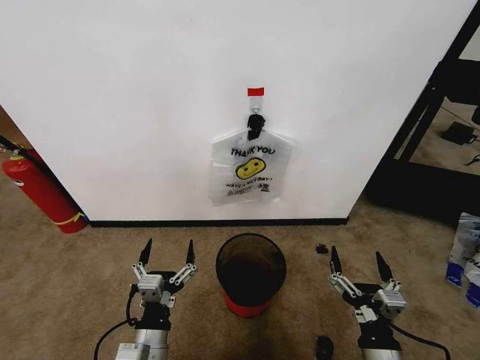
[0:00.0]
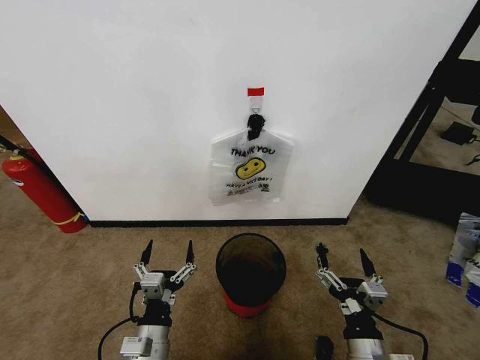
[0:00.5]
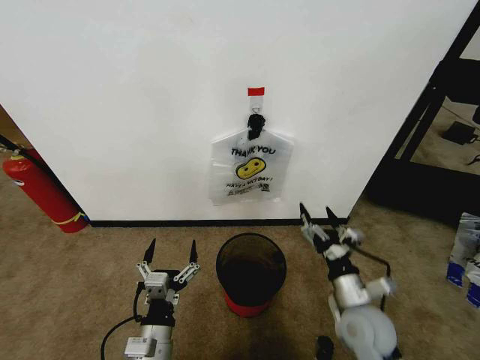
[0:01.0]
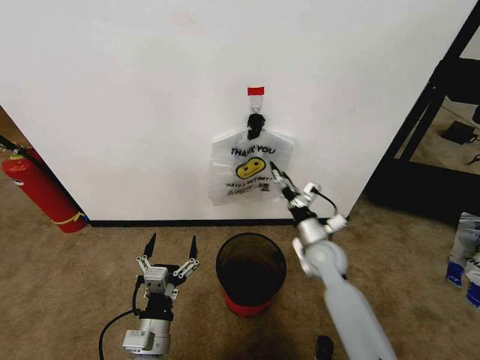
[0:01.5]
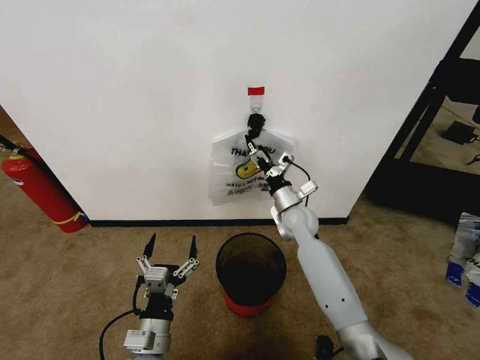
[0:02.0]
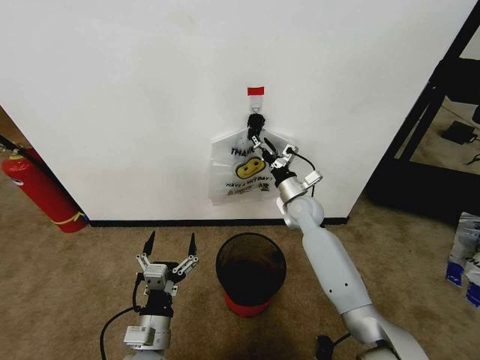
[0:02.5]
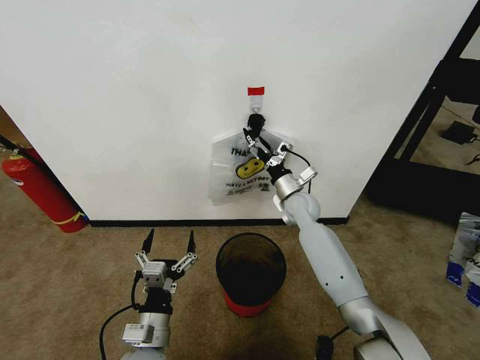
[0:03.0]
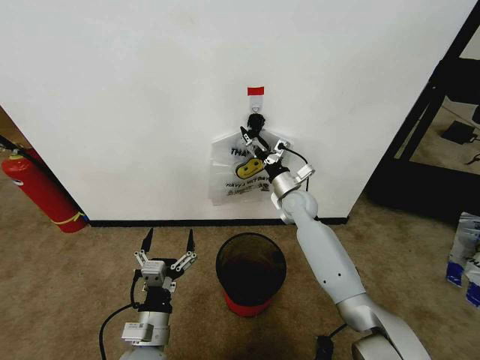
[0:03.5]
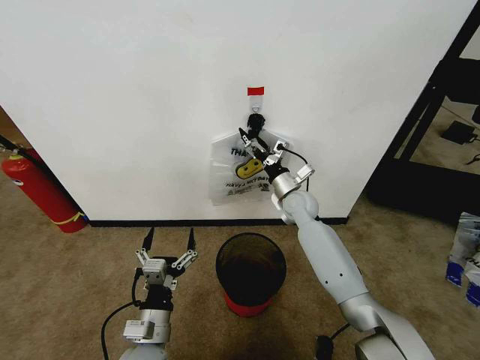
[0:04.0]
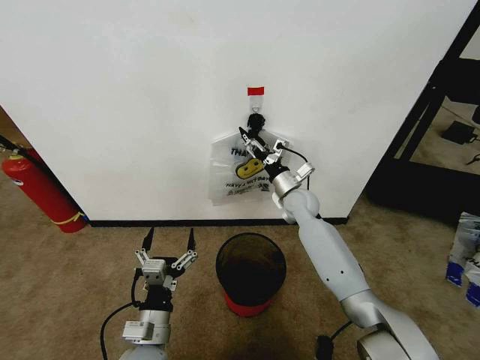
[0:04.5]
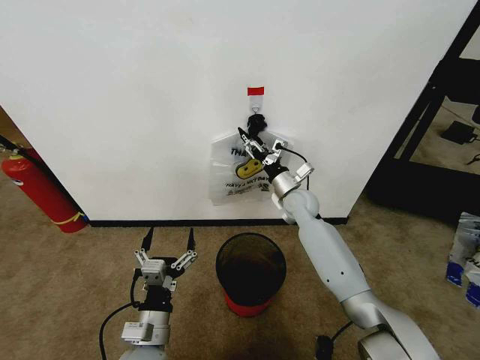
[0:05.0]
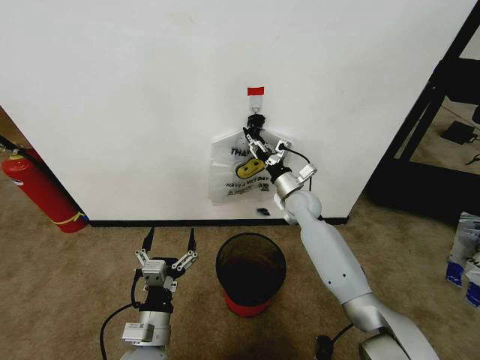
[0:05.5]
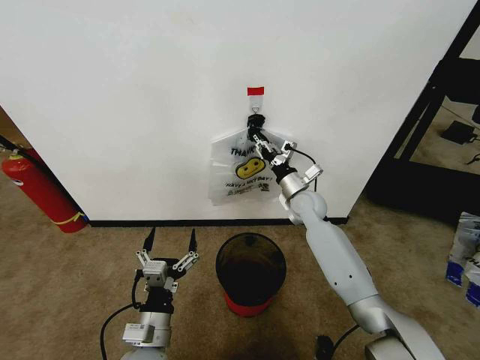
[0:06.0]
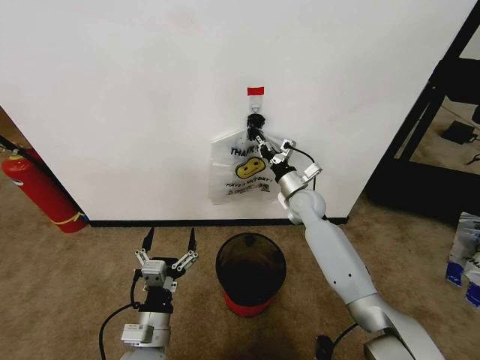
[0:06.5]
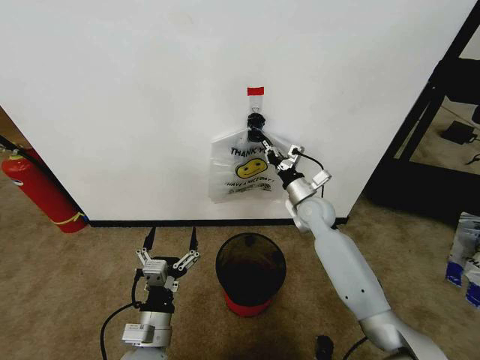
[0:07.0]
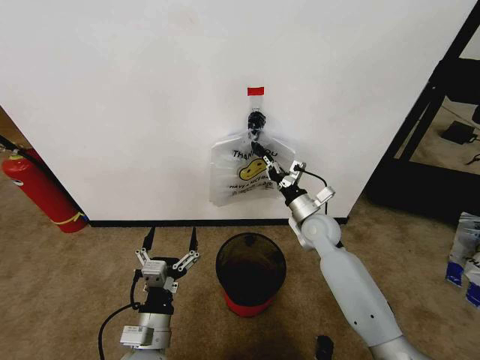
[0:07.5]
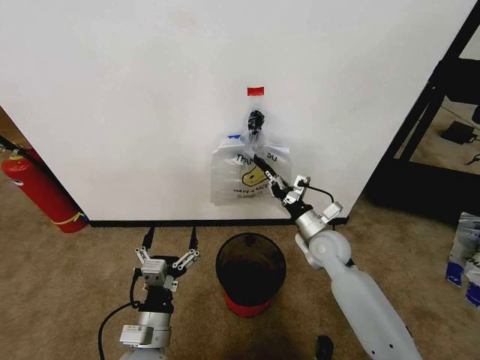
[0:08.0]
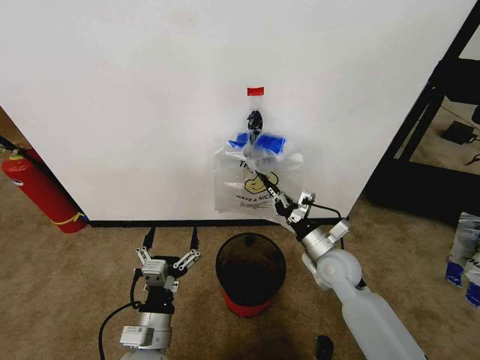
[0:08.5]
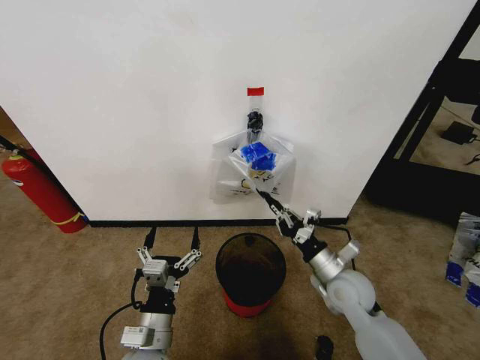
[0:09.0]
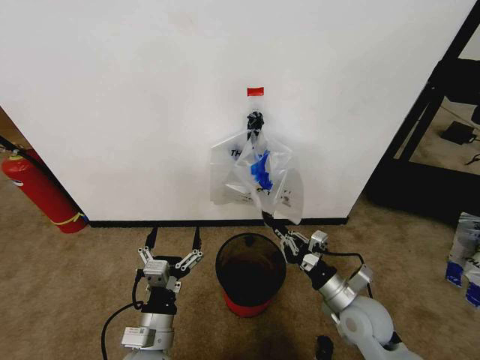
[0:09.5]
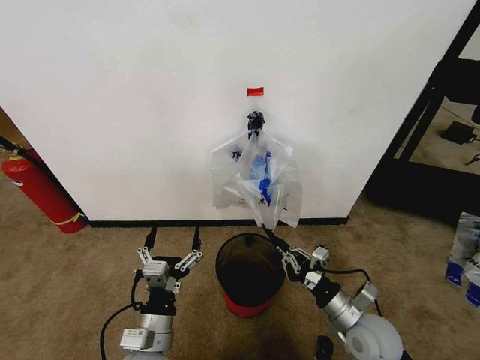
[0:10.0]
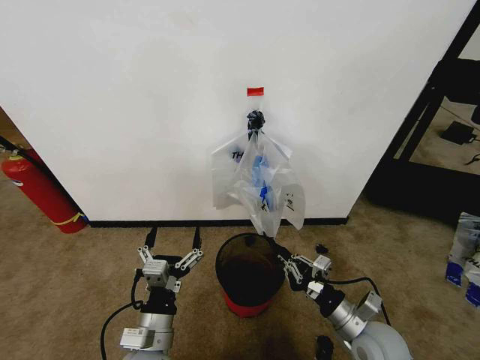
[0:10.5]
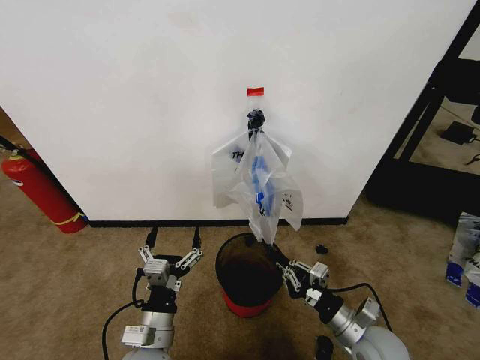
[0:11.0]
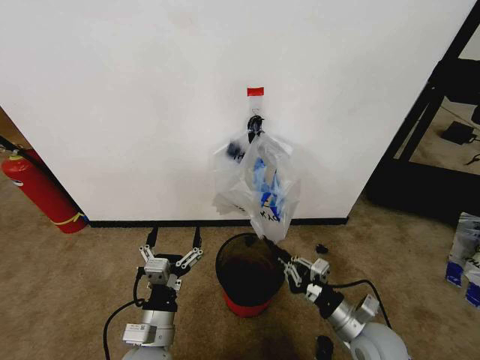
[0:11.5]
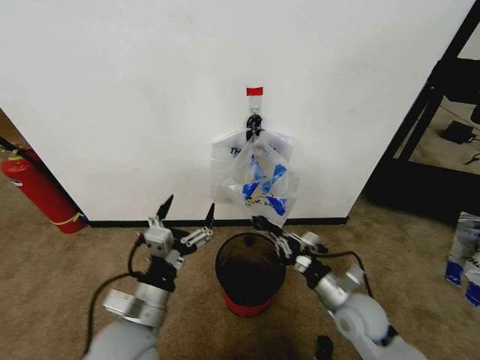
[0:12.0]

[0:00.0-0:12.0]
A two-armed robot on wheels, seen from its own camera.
Task of the whole recording: Pick up the garbage bag from the wall and place it over the trash bin.
0:02.0 to 0:04.0: The right gripper shifts by roughly 5 cm.
0:04.0 to 0:06.0: The right gripper closes up.
0:06.0 to 0:08.0: The right gripper shifts some 10 cm backward, and closes.
0:08.0 to 0:10.0: The right gripper is displaced backward by approximately 20 cm.
0:10.0 to 0:12.0: The left gripper shifts roughly 10 cm upward.

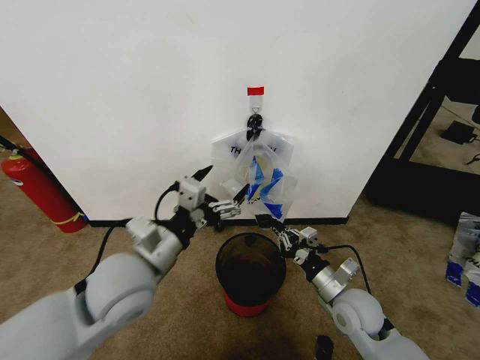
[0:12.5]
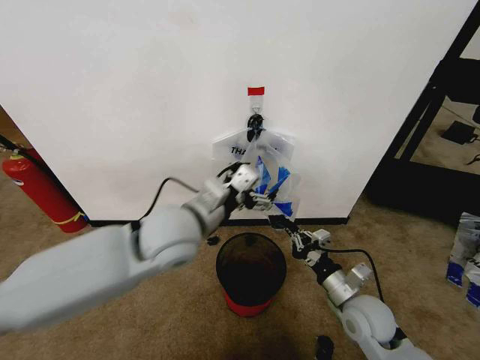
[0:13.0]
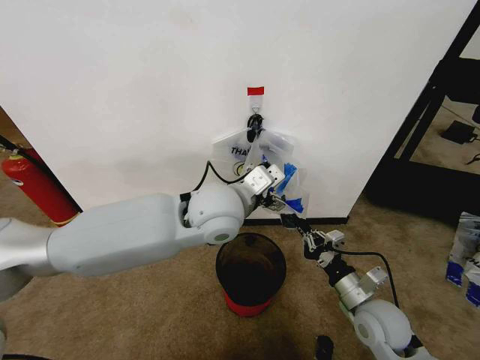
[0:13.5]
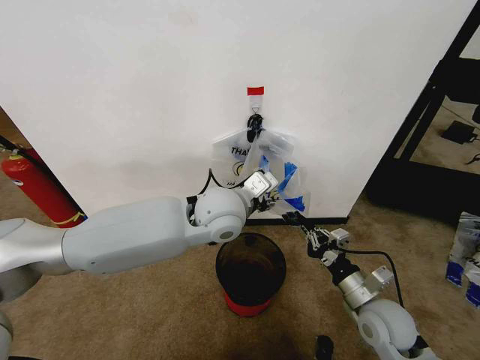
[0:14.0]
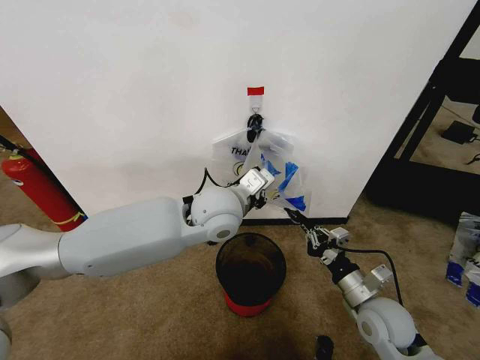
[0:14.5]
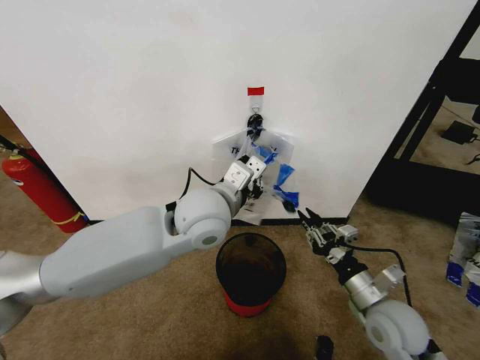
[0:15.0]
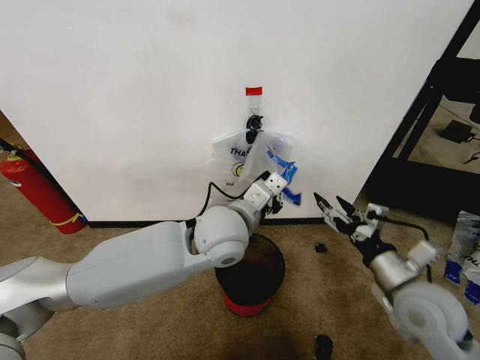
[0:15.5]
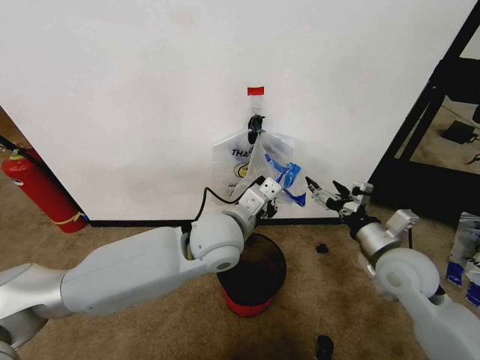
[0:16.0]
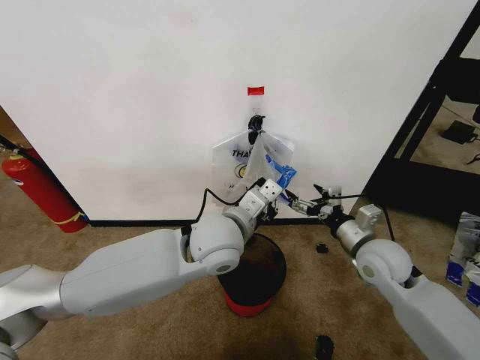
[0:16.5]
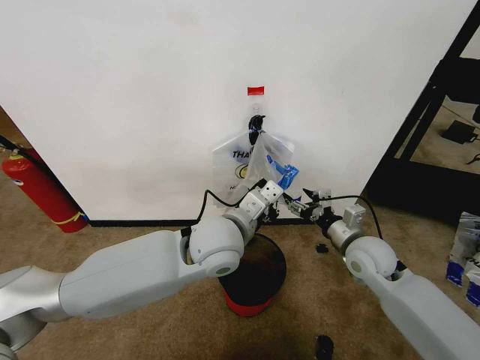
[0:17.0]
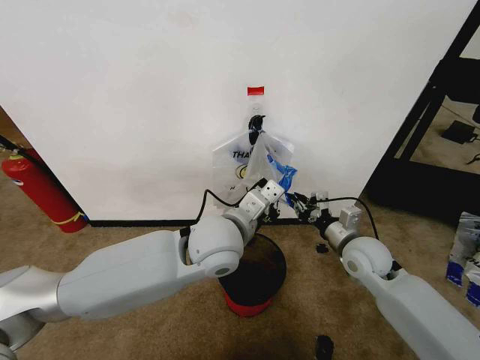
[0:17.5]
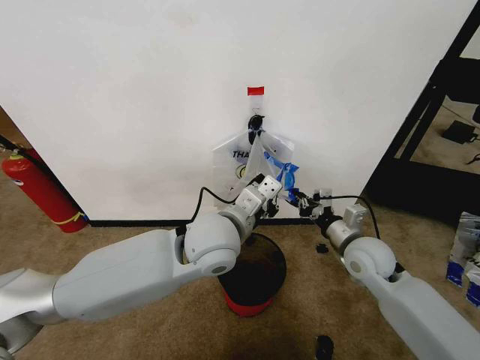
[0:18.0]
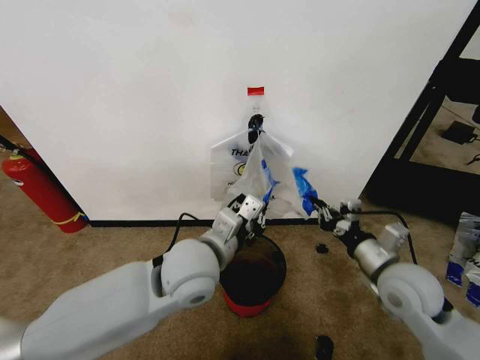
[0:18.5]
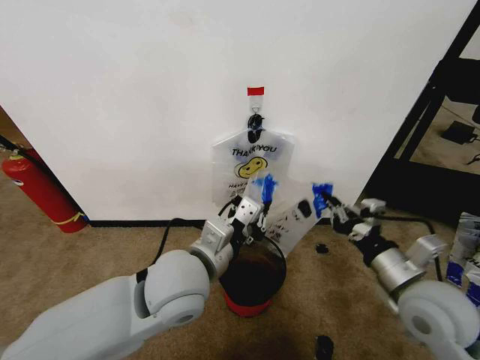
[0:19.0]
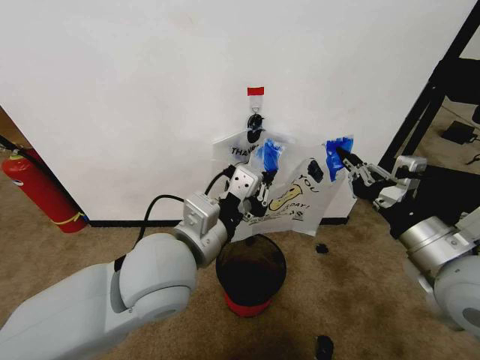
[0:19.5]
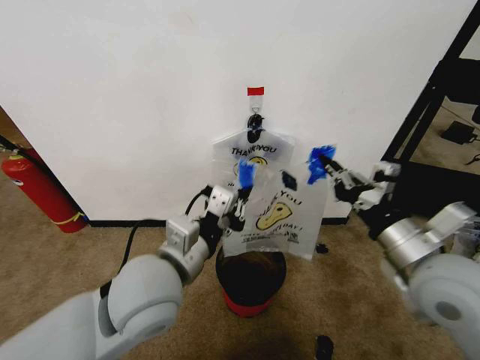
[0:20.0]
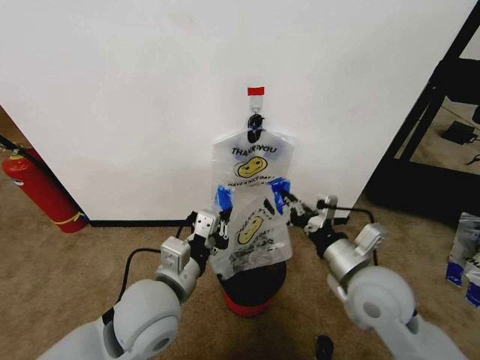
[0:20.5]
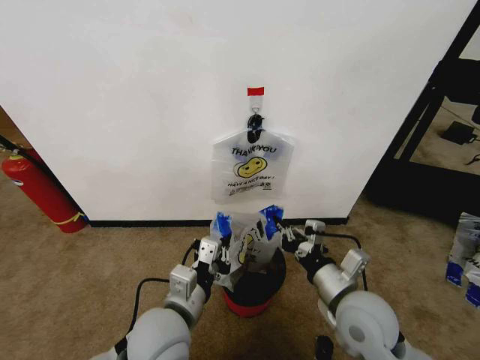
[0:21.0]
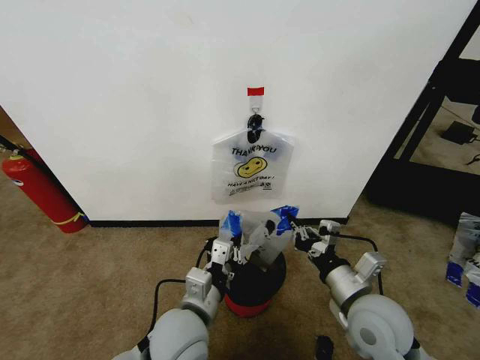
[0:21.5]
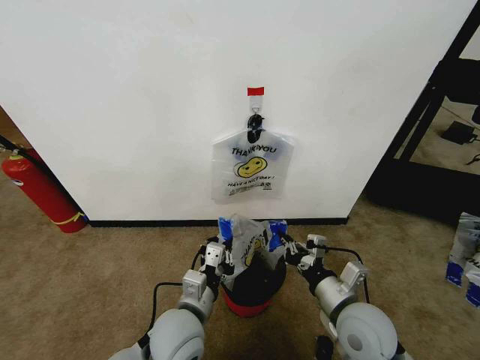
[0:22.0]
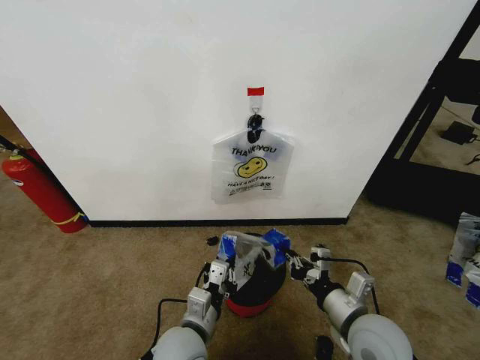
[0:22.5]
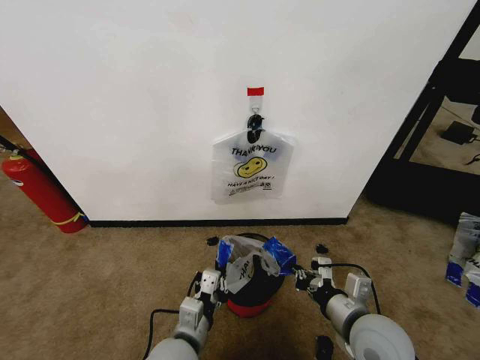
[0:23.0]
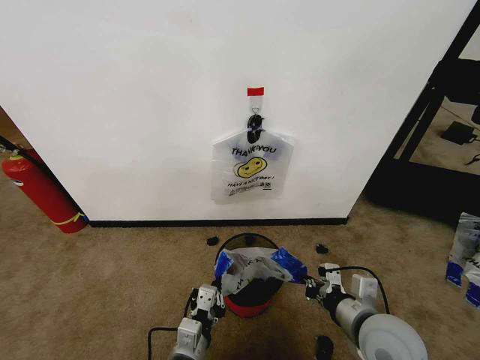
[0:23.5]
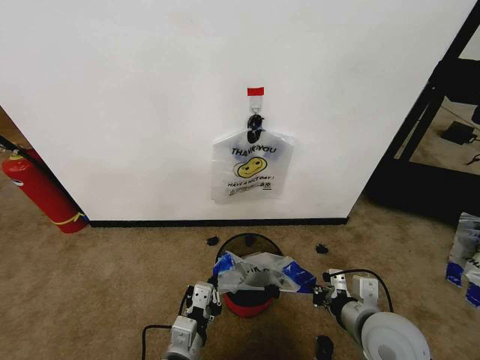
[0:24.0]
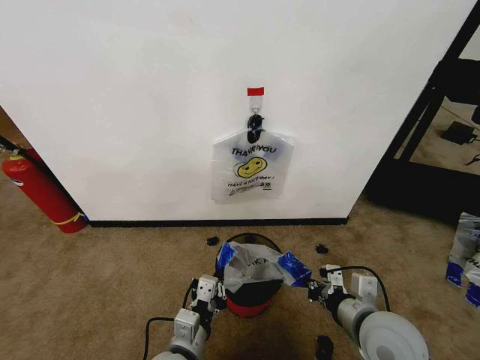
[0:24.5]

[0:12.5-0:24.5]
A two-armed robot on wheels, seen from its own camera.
Task of the whole recording: Pick up the garbage bag from the wall and place it over the trash bin.
0:12.5 to 0:14.5: The right gripper moves about 5 cm. Meanwhile the left gripper heads to the right and forward, covering some 20 cm, and closes its fingers.
0:14.5 to 0:16.5: The right gripper is displaced forward and upward by about 10 cm, and opens. Meanwhile the left gripper shifts by approximately 5 cm.
0:16.5 to 0:18.5: The left gripper changes place by about 5 cm; the right gripper is displaced backward by approximately 5 cm, and closes its fingers.
0:18.5 to 0:20.5: The right gripper is displaced to the left by about 10 cm, and goes upward and returns, some 10 cm each way, while the left gripper heads backward and to the left, covering some 10 cm, and travels upward and back again, approximately 5 cm each way.
0:20.5 to 0:22.5: The right gripper travels downward and backward by roughly 10 cm, while the left gripper is displaced downward by about 15 cm.

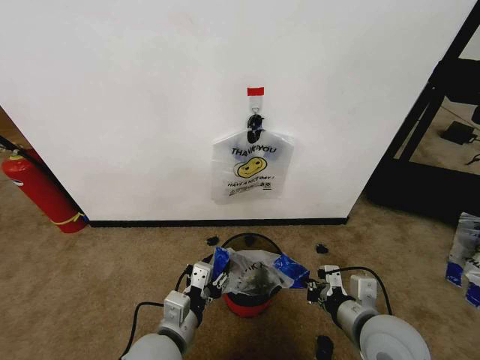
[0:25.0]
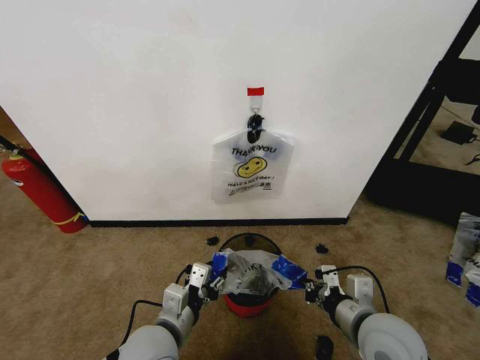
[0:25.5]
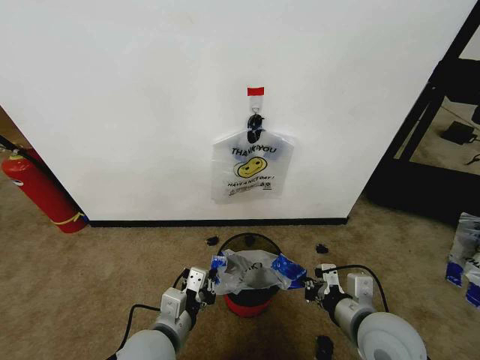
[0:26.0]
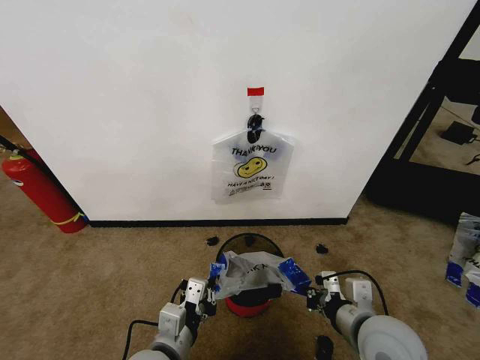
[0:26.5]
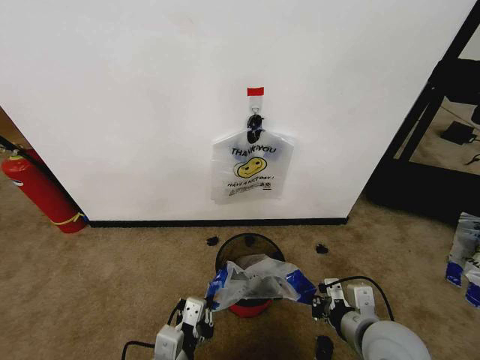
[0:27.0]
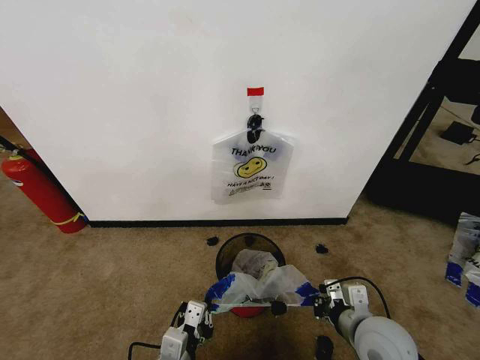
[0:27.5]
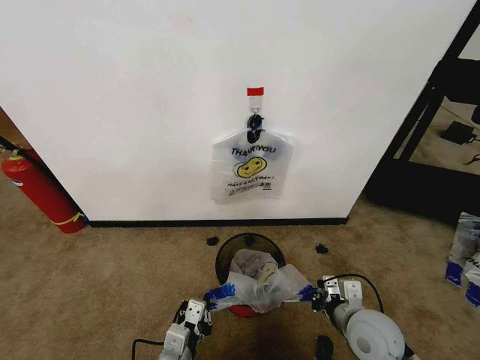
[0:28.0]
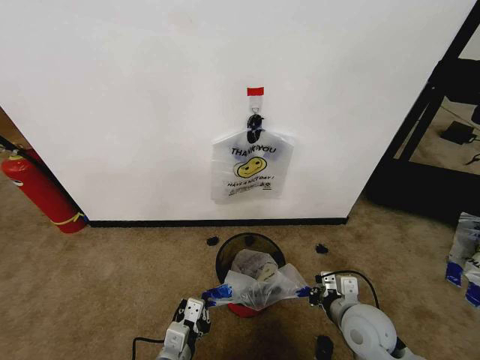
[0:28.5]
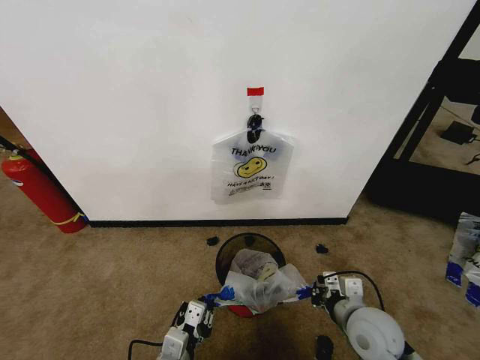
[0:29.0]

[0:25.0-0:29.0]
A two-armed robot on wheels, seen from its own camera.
Task of the whole recording: Pick up the garbage bag from the wall and place it over the trash bin.
0:25.0 to 0:27.0: The left gripper shifts about 5 cm backward, and closes its fingers.
0:27.0 to 0:29.0: The grippers both shift downward by roughly 5 cm.
